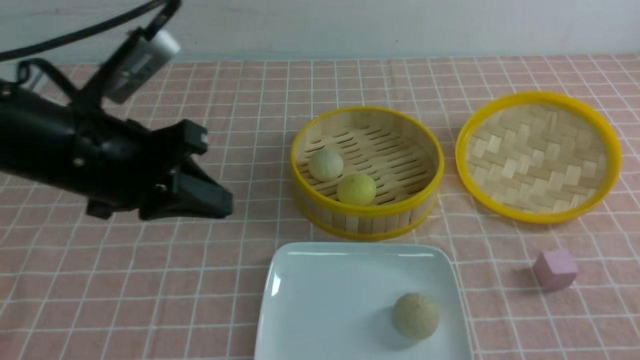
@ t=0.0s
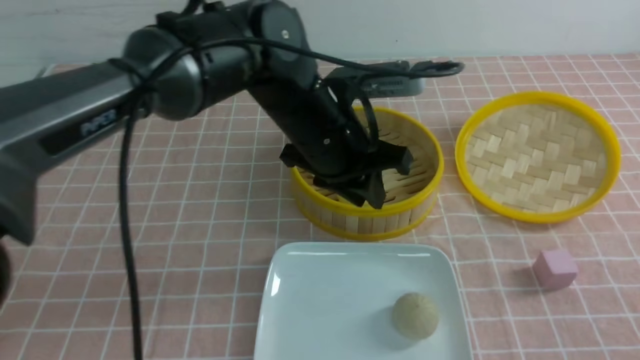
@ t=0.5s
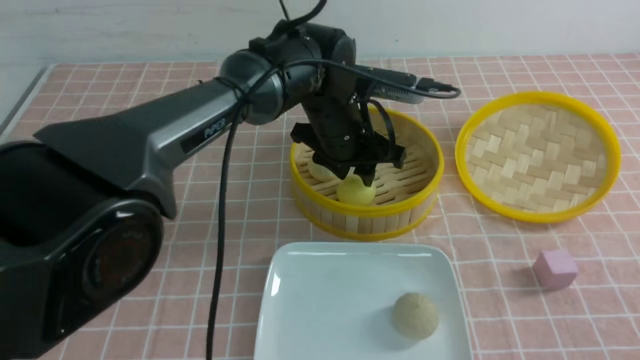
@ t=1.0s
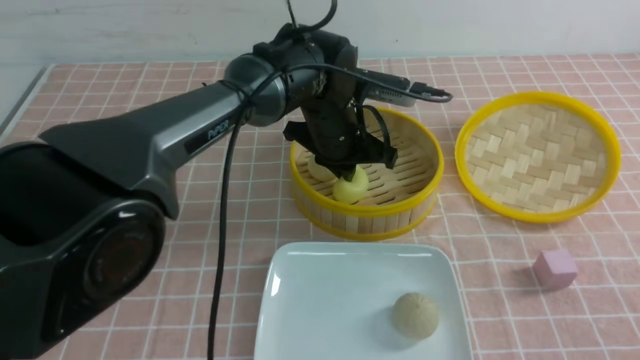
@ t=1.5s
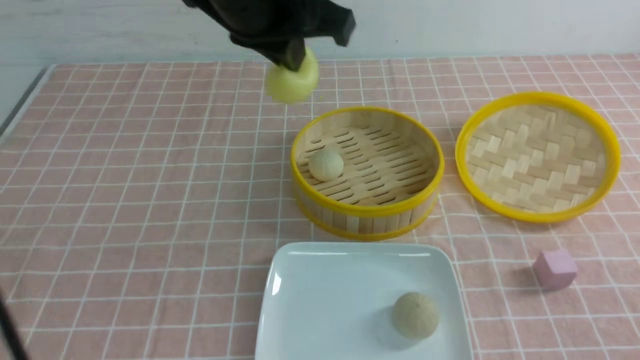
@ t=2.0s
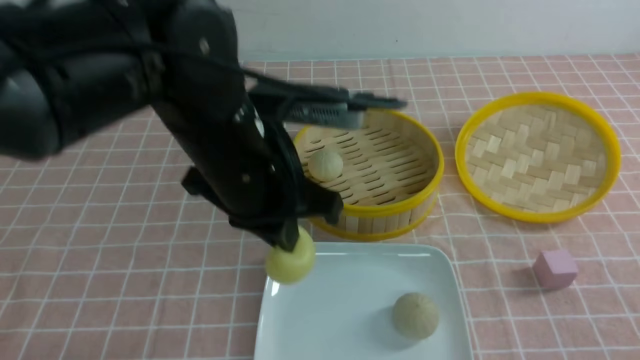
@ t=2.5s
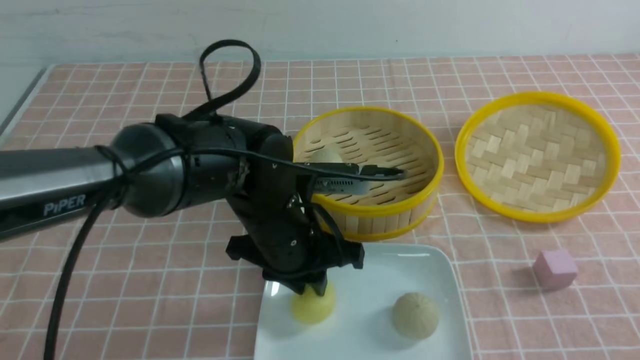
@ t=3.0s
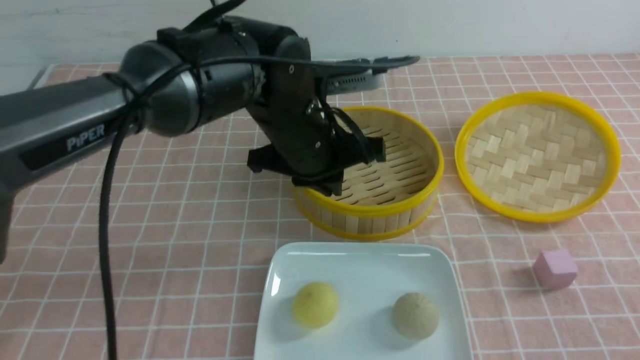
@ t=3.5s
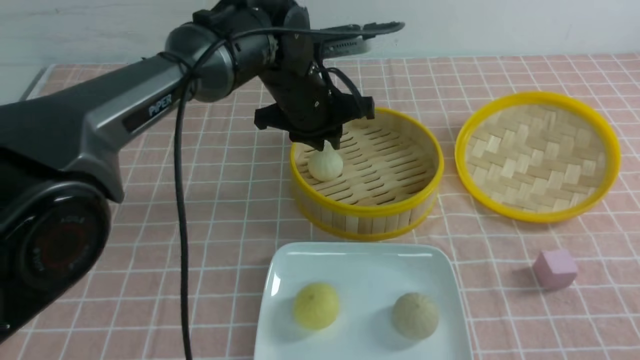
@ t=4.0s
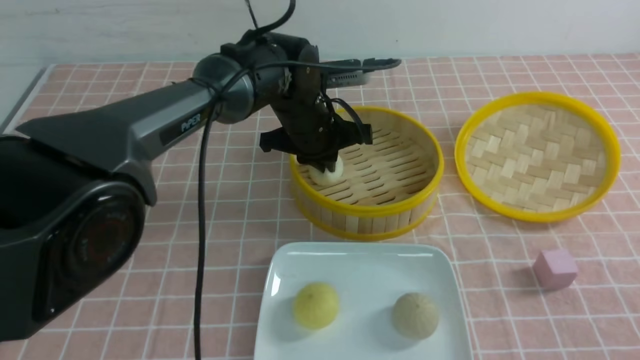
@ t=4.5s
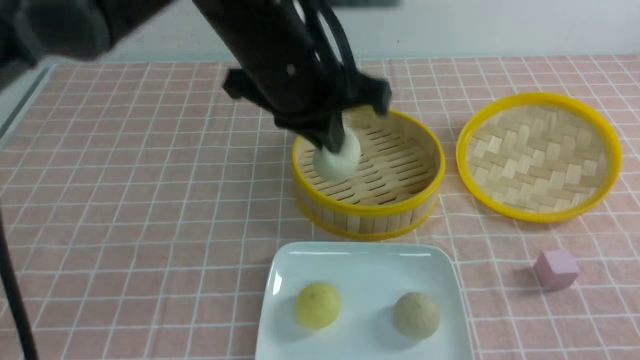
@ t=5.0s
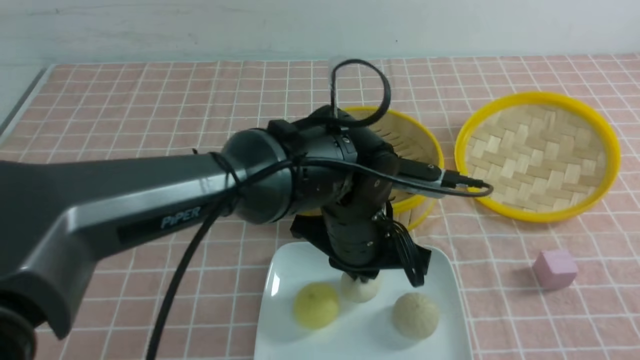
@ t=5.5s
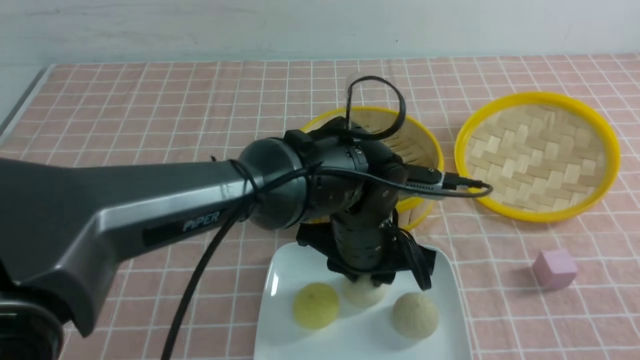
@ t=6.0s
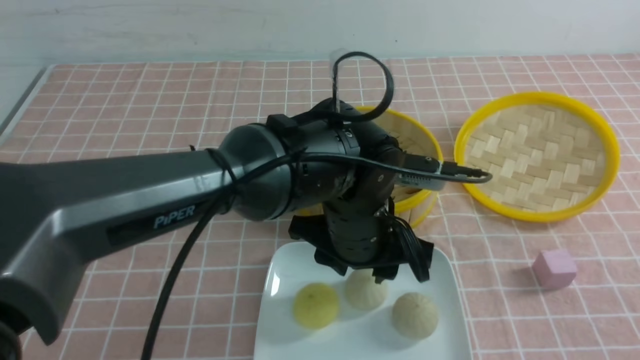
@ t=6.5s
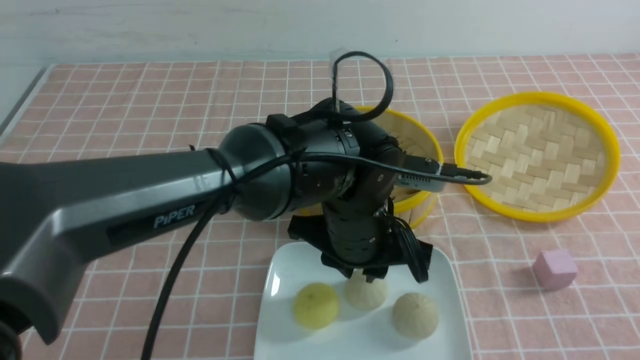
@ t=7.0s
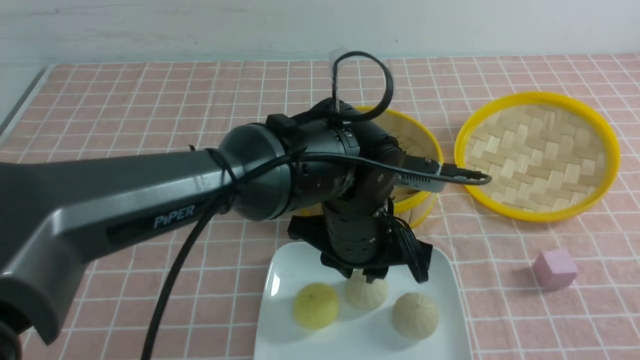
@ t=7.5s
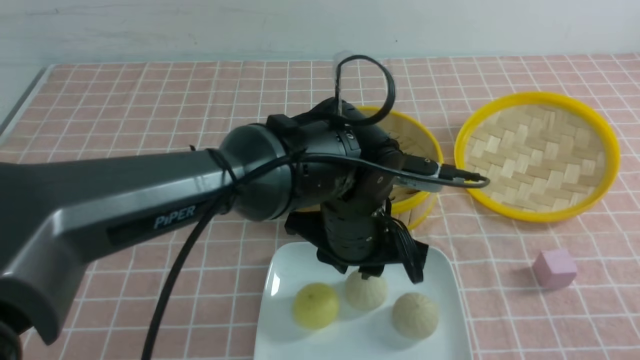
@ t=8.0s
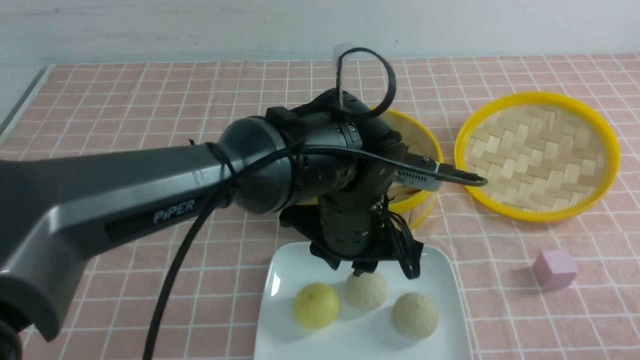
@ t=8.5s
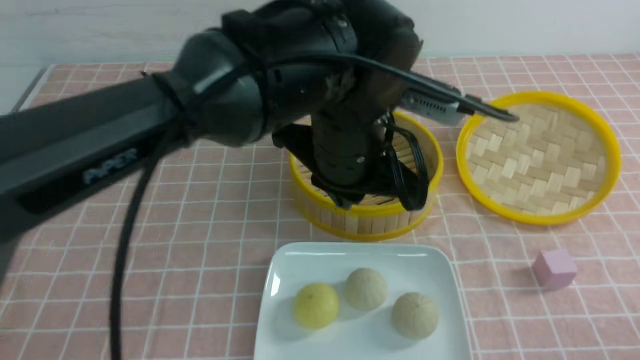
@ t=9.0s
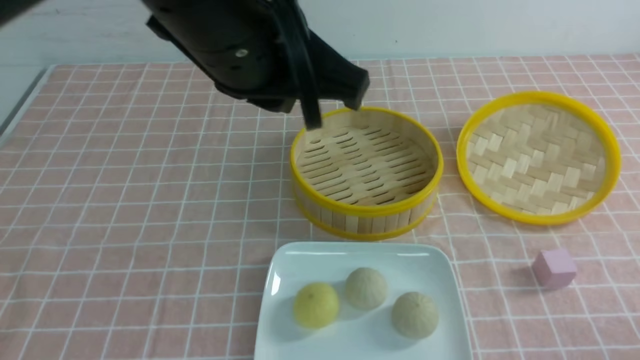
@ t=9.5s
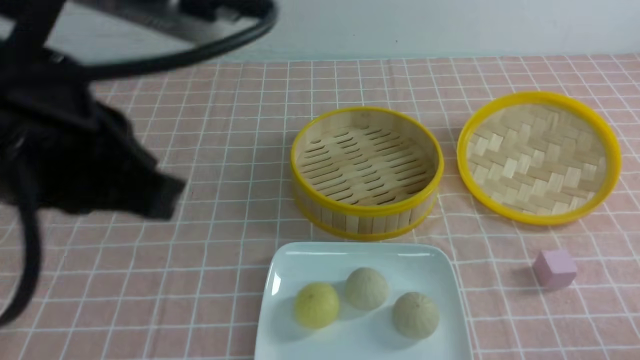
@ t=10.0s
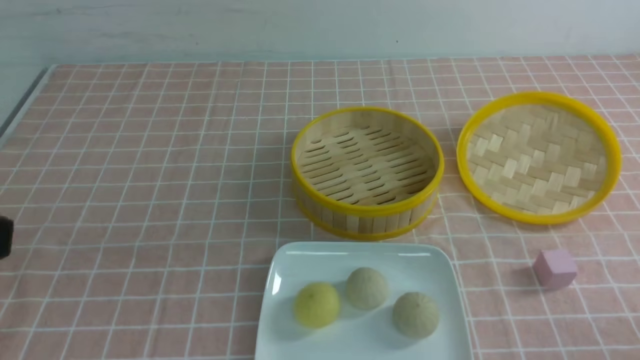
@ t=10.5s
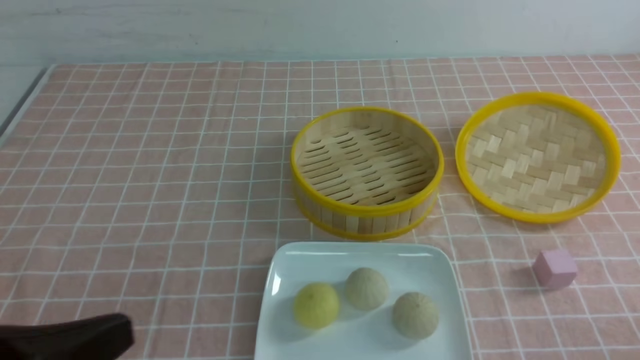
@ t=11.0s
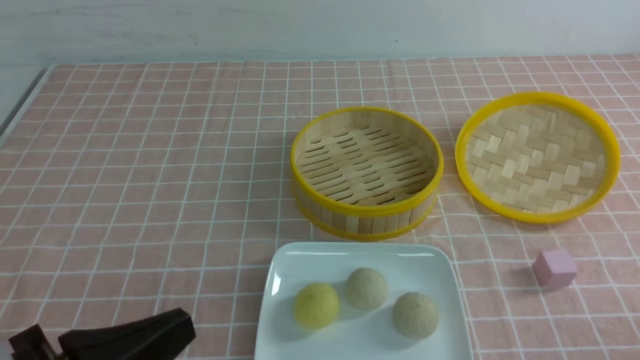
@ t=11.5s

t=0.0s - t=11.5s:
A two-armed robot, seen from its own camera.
Step, t=1.5s - t=3.0s: use the left arm to put the steamed stuffed bun into the plate.
Step, t=3.5s - t=4.5s: use the left arm to grab the steamed stuffed bun that is closest to it.
Step, t=5.0s - t=6.0s: use the left arm to put the steamed stuffed bun into the plate.
t=0.0s - t=2.0s: The left gripper shifts some 15 cm upward and to the right, and opens, then closes once more.
t=2.0s - t=4.0s: The left gripper travels downward and forward by roughly 20 cm, and opens up.
t=4.0s - t=6.0s: The left gripper moves backward, about 15 cm, and closes, then opens again.
t=6.0s - t=7.5s: The right gripper closes up.
t=7.5s - t=9.5s: The right gripper is displaced downward by roughly 10 cm, while the left gripper goes roughly 25 cm upward and to the left, and closes up.
t=9.5s - t=11.5s: The left gripper travels downward, backward and to the left by approximately 25 cm.

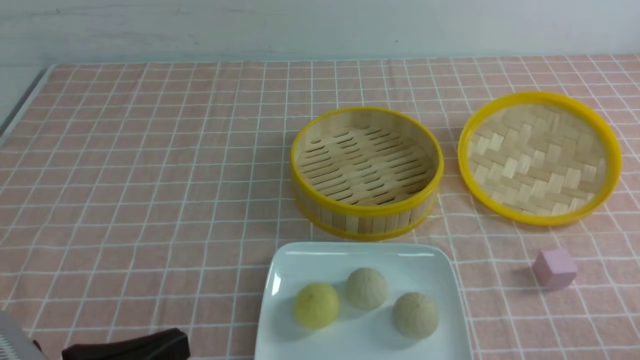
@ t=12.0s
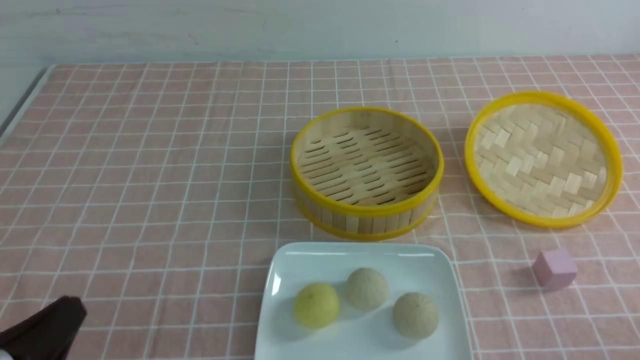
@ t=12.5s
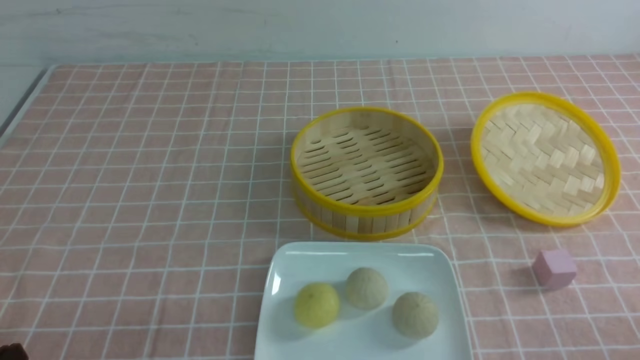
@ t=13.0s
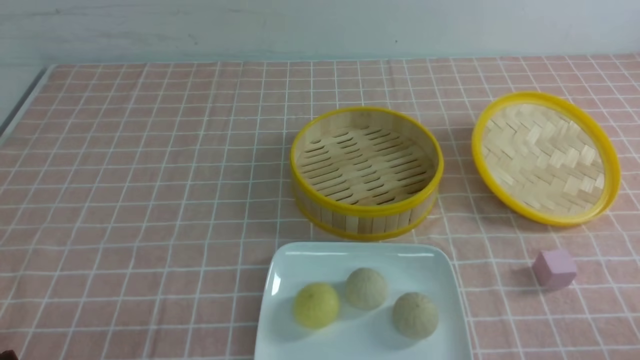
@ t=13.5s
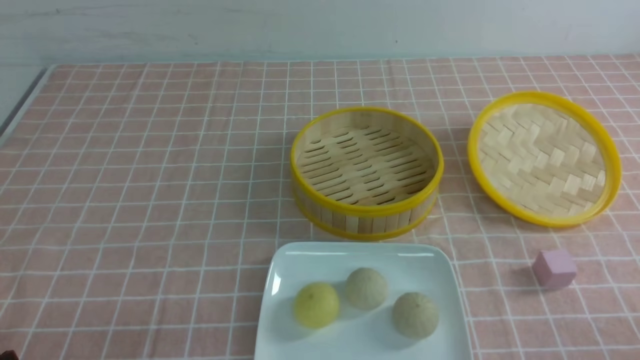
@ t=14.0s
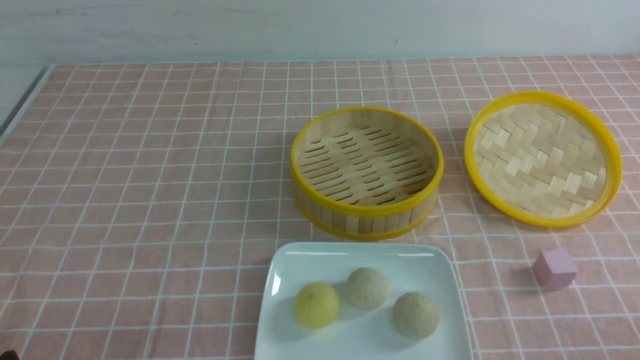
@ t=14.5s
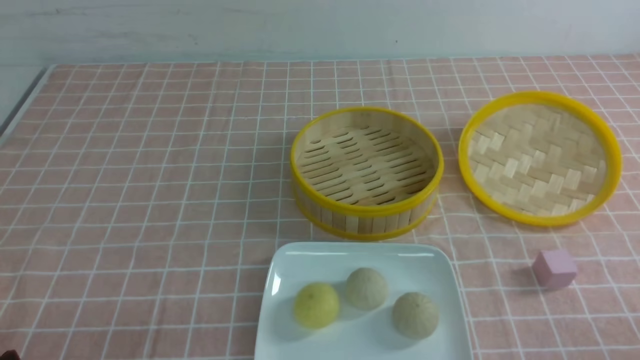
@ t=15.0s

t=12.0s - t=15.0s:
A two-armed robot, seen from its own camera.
t=12.0s - t=13.5s: The left gripper is displaced downward and to the left by some 10 cm.
t=13.5s - t=15.0s: Both grippers stay about where they are.

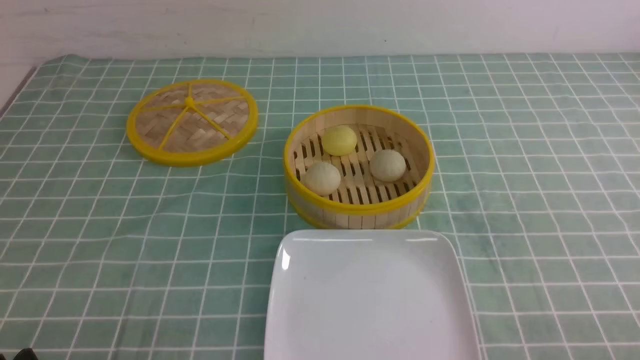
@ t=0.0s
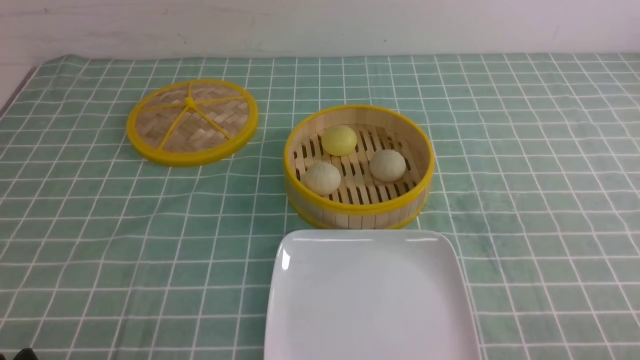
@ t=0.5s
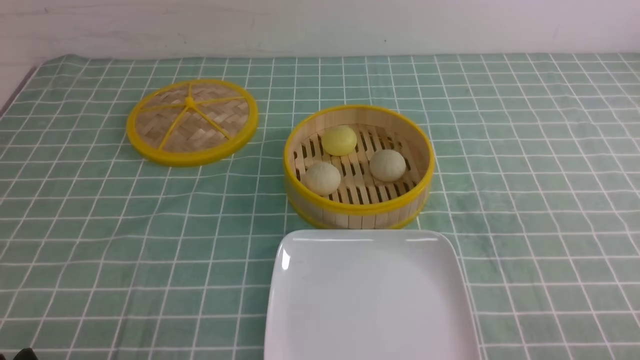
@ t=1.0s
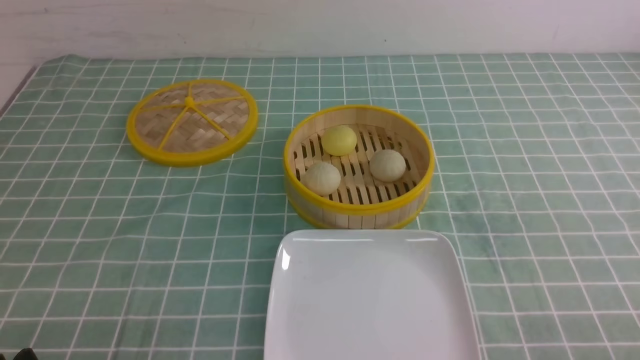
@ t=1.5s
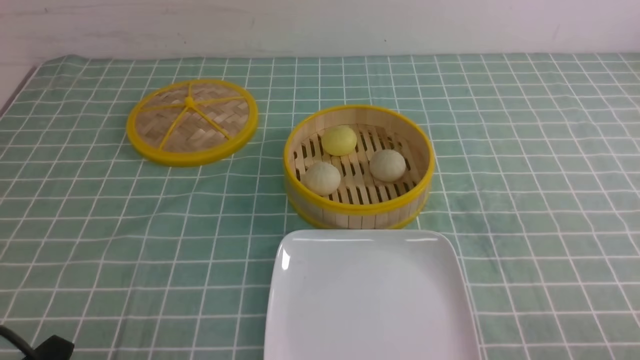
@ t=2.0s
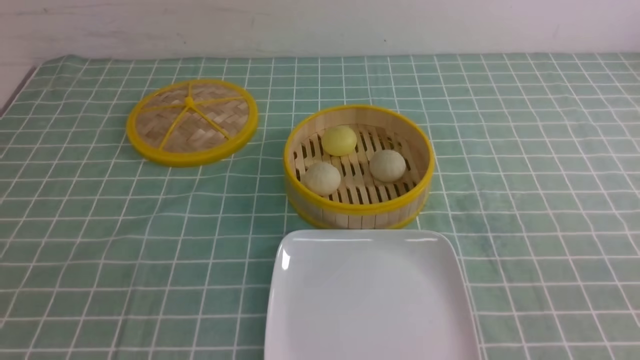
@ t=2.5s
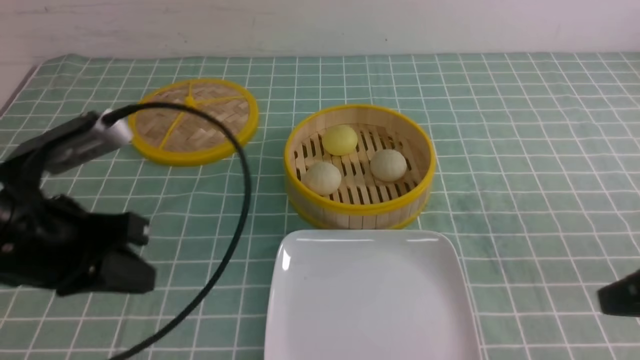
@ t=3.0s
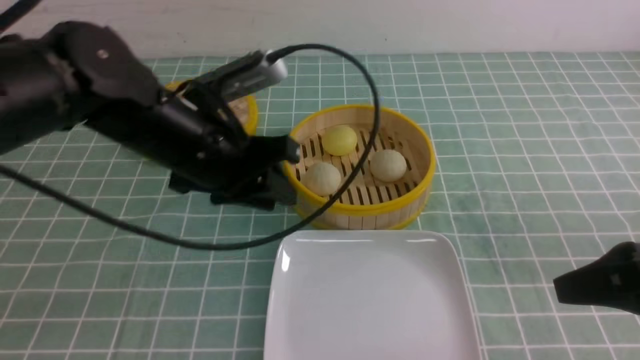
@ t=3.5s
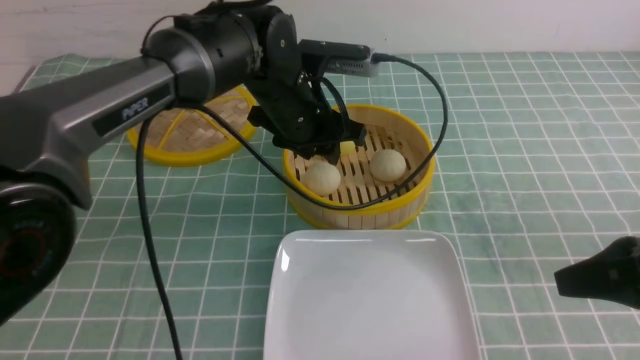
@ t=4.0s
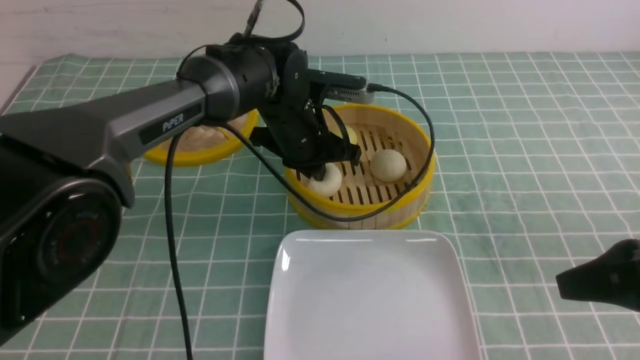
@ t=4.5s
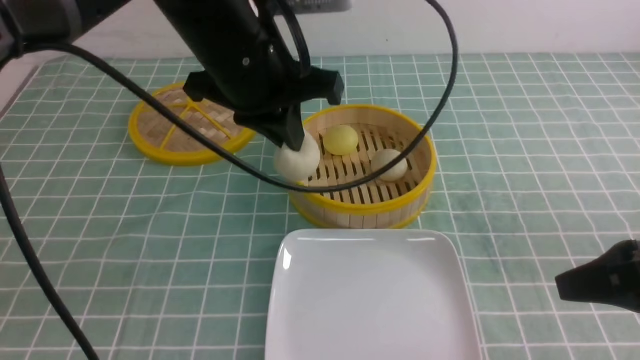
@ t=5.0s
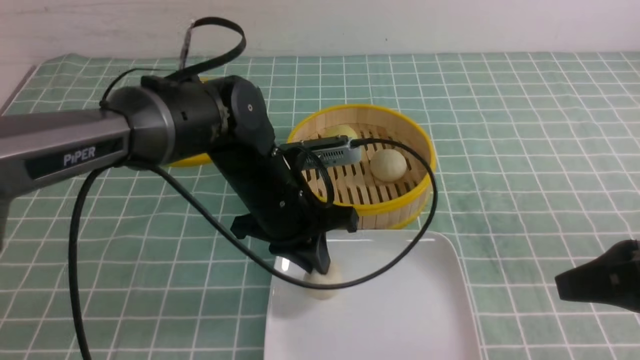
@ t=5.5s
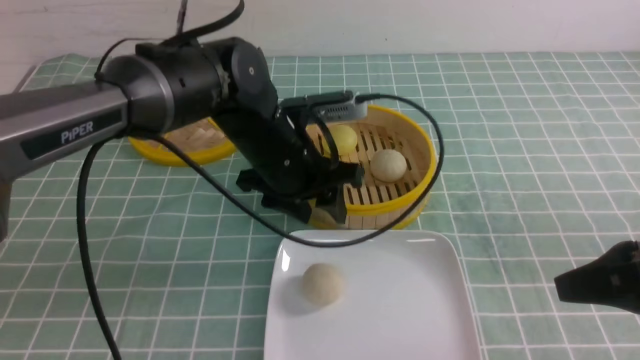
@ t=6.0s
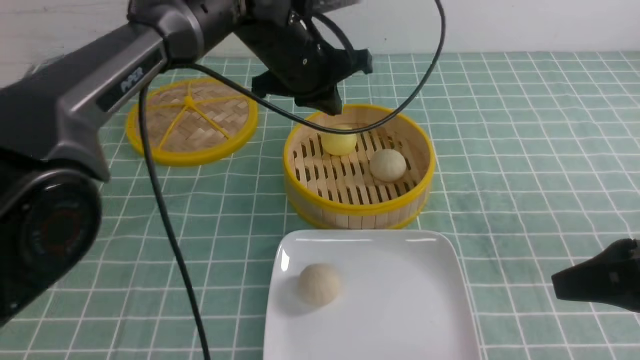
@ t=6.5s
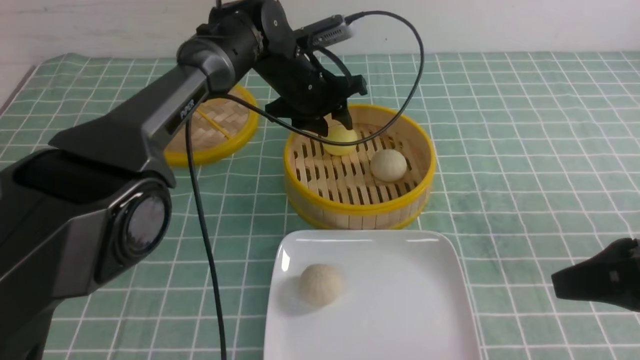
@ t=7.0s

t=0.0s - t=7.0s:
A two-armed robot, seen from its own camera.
Step, t=0.0s - t=4.0s: use the left arm to grab the steamed stuffed bun that is closest to it.
Step, t=4.5s - t=5.5s: use the left arm to put the steamed stuffed bun into the plate.
t=2.0s - t=3.5s: The left gripper travels forward, to the right and upward by some 30 cm, and closes, then opens again. The right gripper goes approximately 15 cm forward and upward, and closes its fingers.
t=3.5s - t=5.0s: The left gripper heads to the right, covering approximately 5 cm, goes forward and returns, some 10 cm each way, and closes up.
t=5.0s - t=7.0s: The left gripper moves forward and downward, about 20 cm, and opens.
